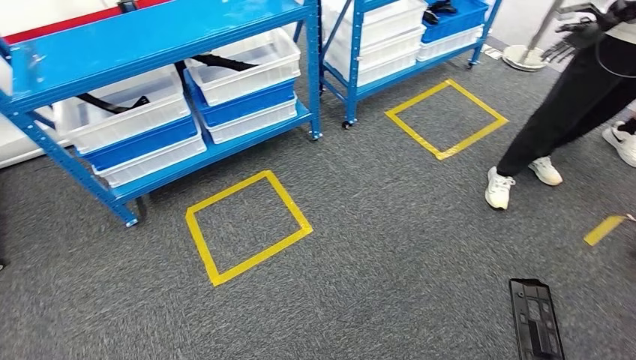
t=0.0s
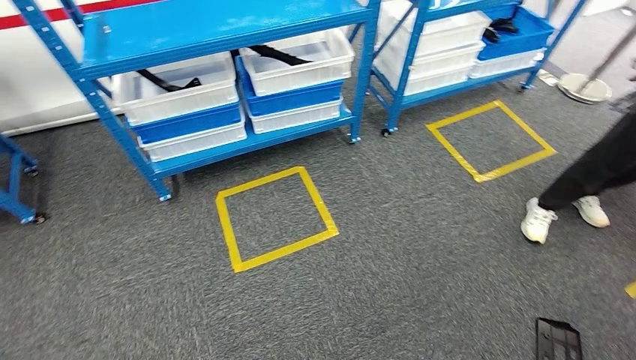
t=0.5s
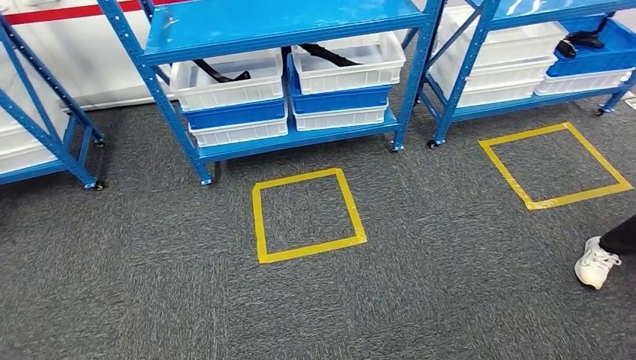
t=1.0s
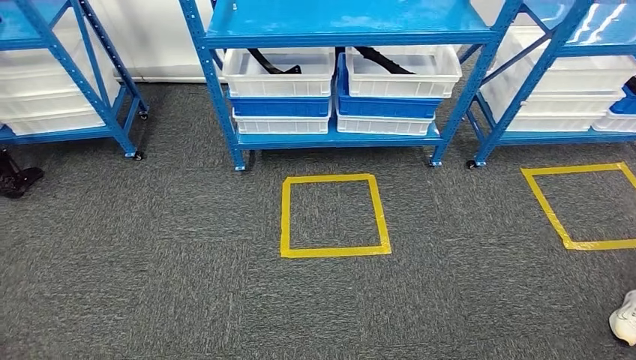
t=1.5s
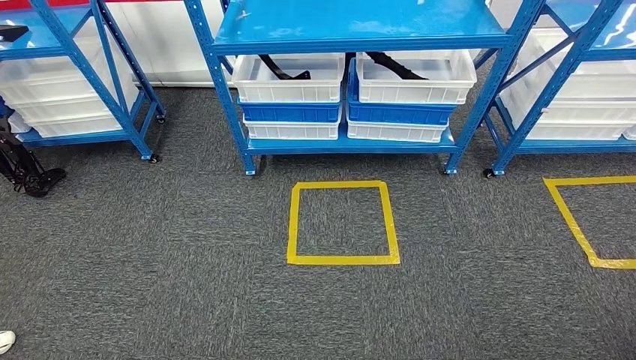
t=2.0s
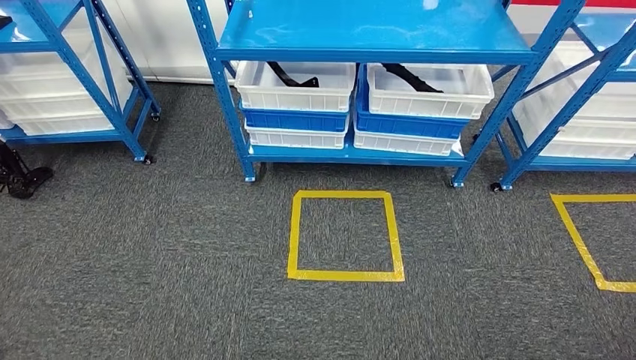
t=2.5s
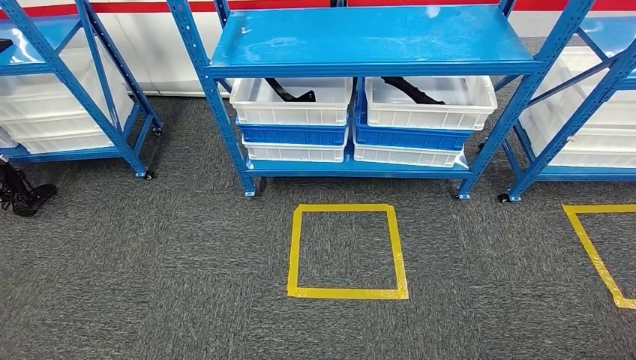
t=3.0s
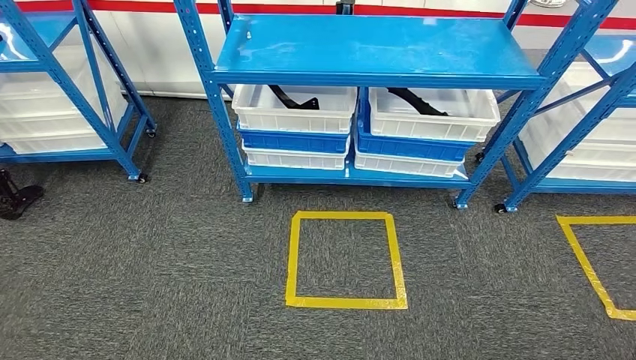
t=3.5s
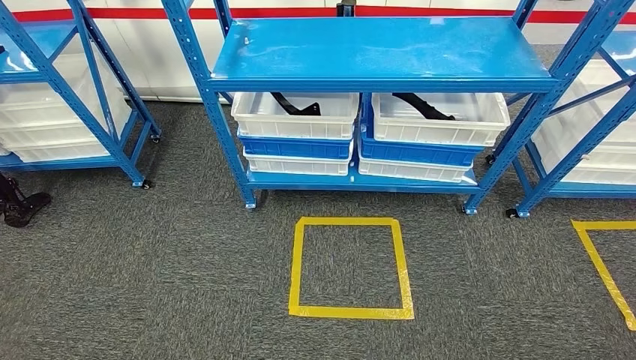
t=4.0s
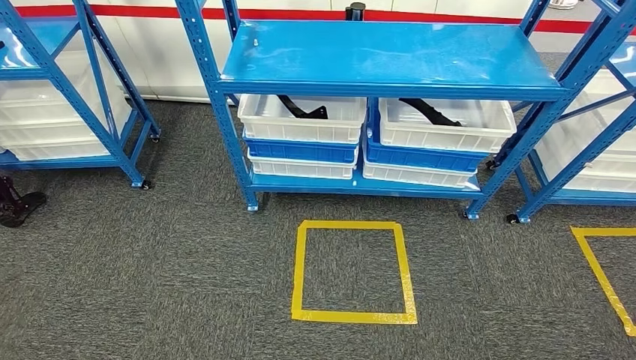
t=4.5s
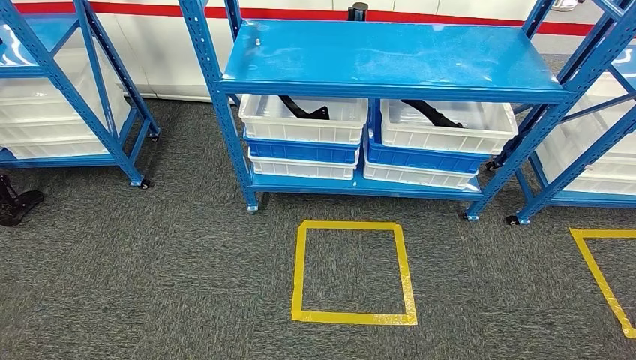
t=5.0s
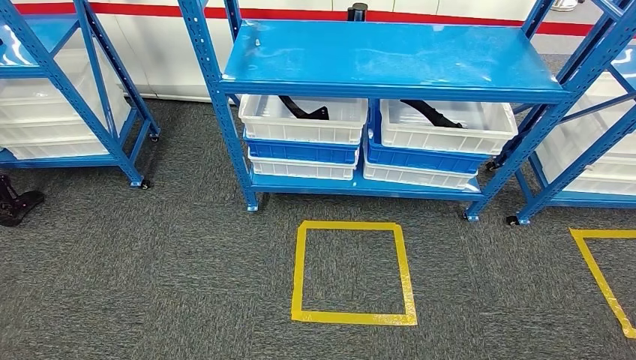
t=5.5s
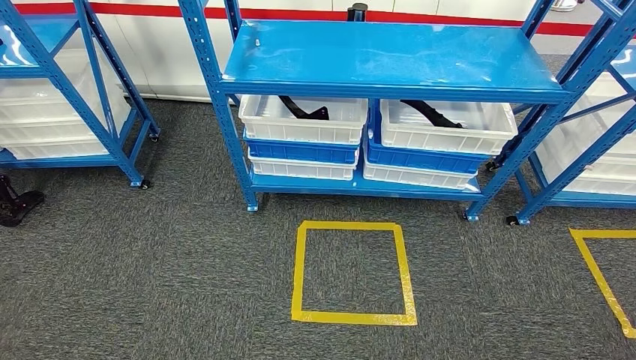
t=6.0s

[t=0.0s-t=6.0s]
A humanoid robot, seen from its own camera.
Step, t=0.0s to t=6.0s: Move to the initial position of the shelf.
